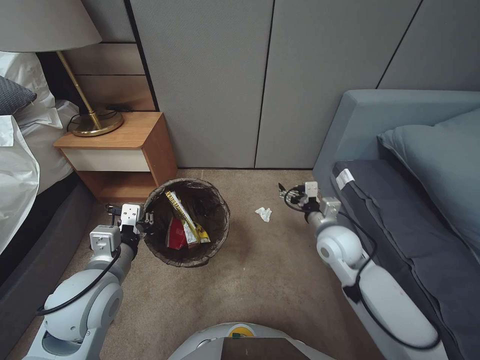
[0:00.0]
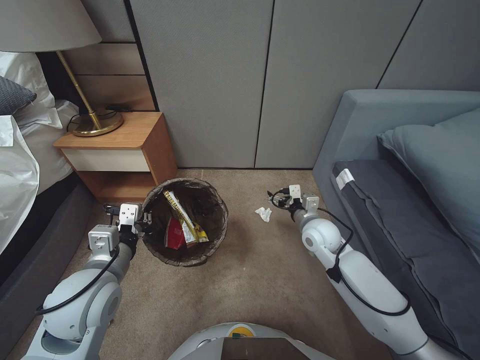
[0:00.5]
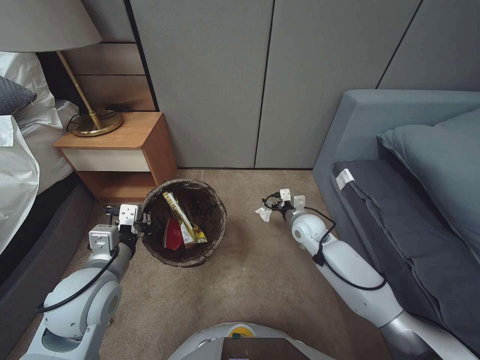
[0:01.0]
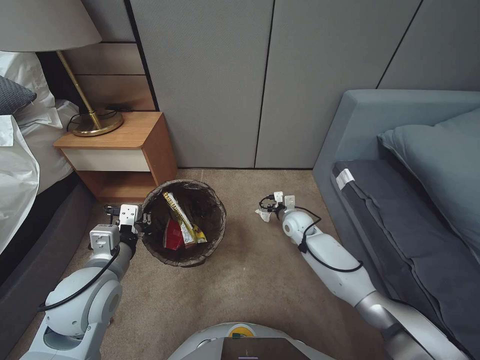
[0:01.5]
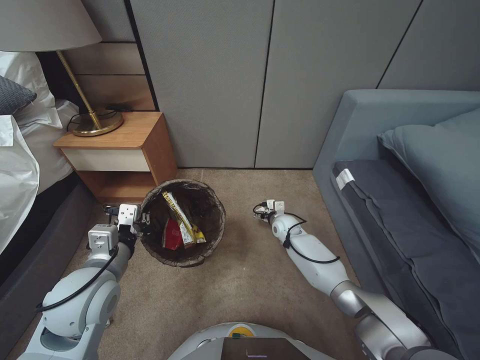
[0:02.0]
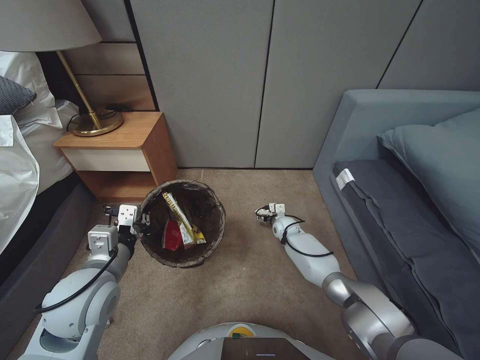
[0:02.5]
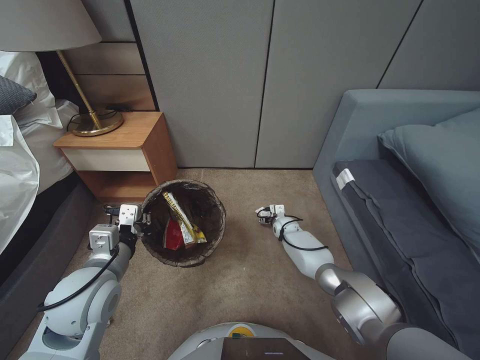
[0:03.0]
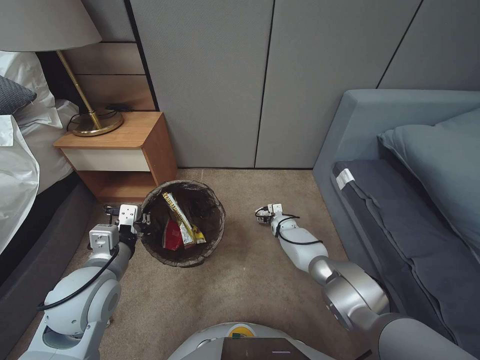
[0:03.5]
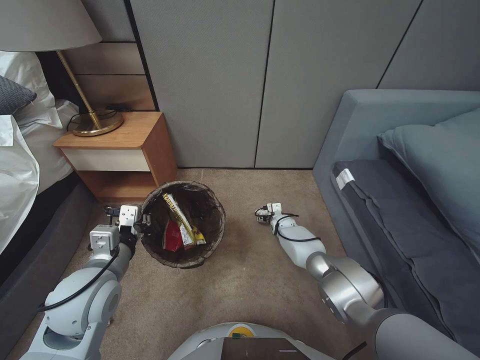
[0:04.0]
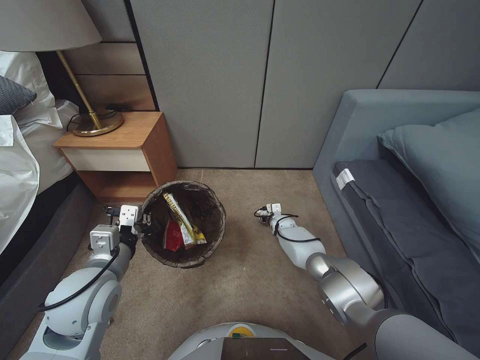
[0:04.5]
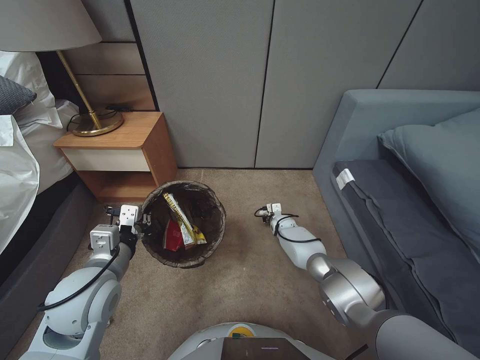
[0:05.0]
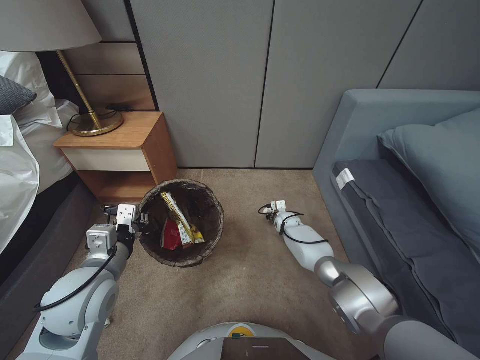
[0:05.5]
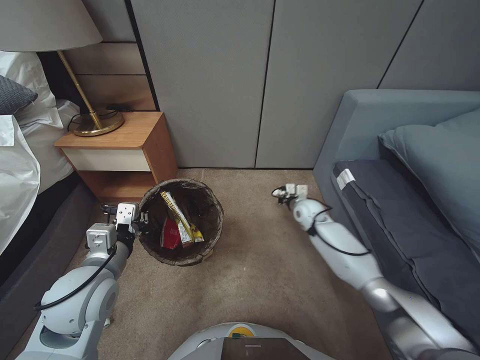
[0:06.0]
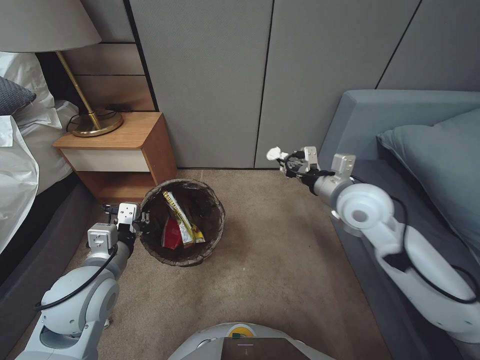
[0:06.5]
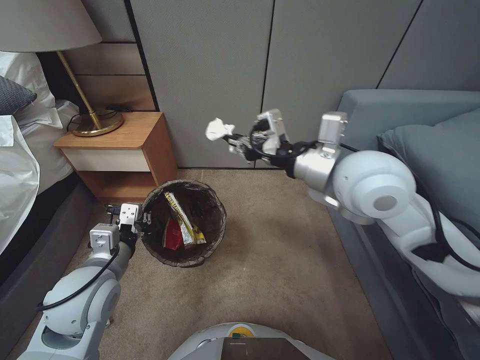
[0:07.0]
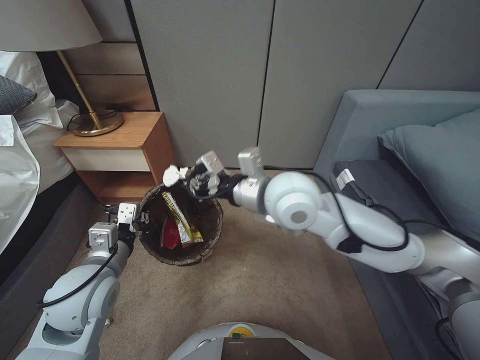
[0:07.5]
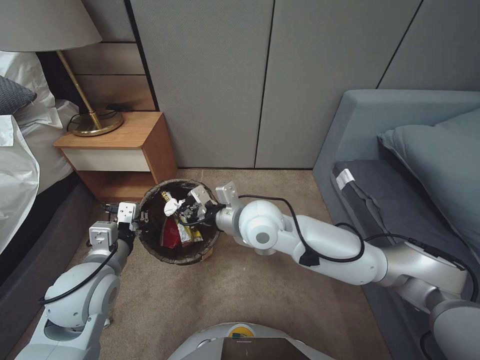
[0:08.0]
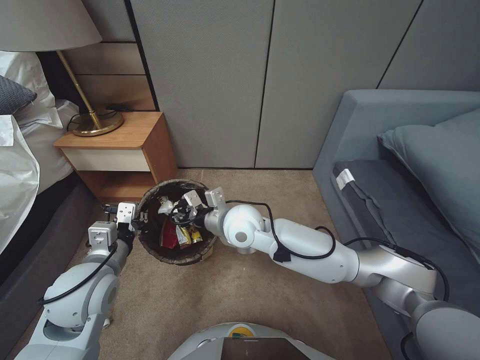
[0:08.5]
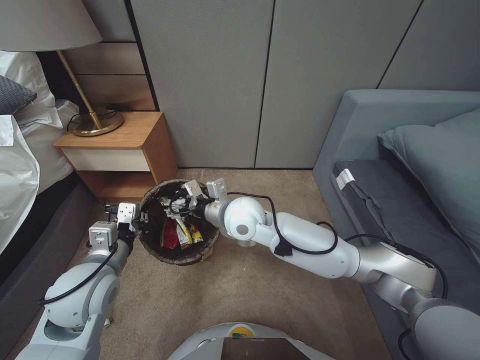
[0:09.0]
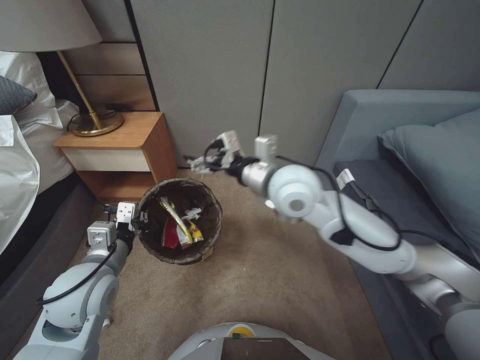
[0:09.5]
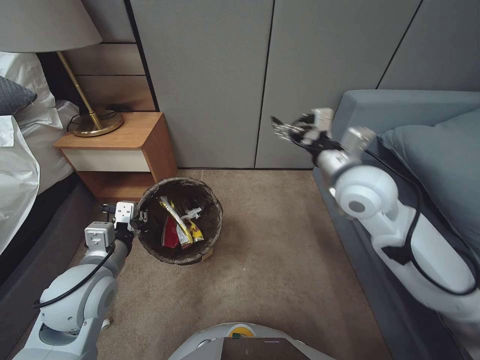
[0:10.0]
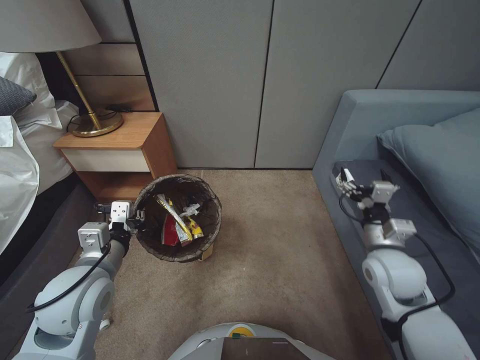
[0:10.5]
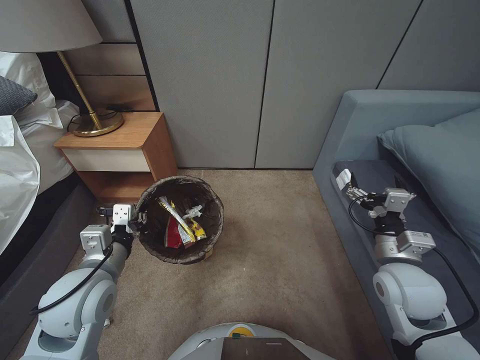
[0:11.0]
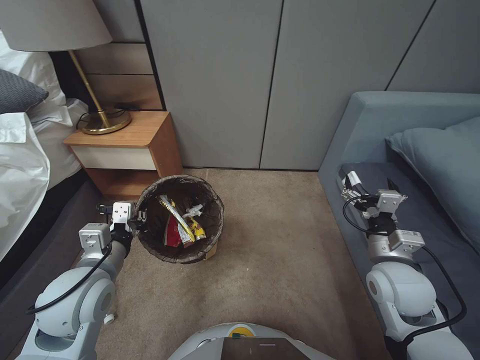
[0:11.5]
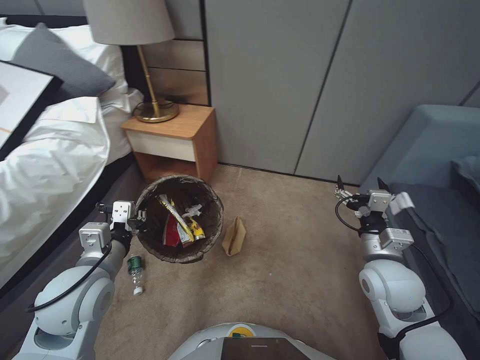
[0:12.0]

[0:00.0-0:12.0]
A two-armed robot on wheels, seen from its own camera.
Task of the whole recording: Pick up the trash bin, then pick up the garbage from the floor and place it into the trash bin.
0:00.0 to 0:02.0: The right gripper travels forward and downward by approximately 25 cm.
0:02.0 to 0:04.0: The right gripper shifts approximately 5 cm downward.
0:04.0 to 0:06.0: The right gripper heads upward, covering approximately 10 cm, and closes up.
0:06.0 to 0:08.0: The right gripper goes roughly 35 cm upward, to the left and backward.
0:08.0 to 0:10.0: The right gripper moves to the right and upward, some 20 cm, and opens up.
0:10.0 to 0:12.0: The right gripper is displaced downward, backward and to the right by approximately 25 cm.

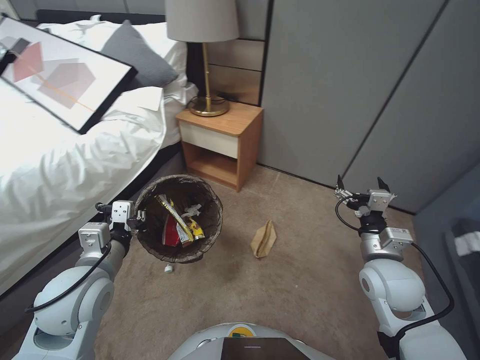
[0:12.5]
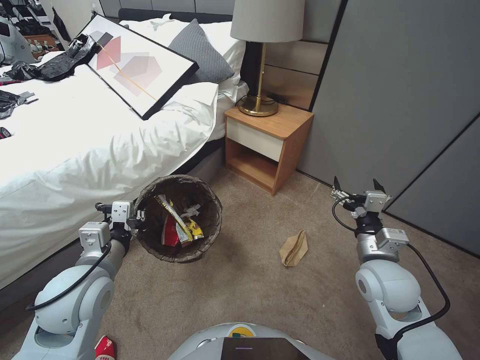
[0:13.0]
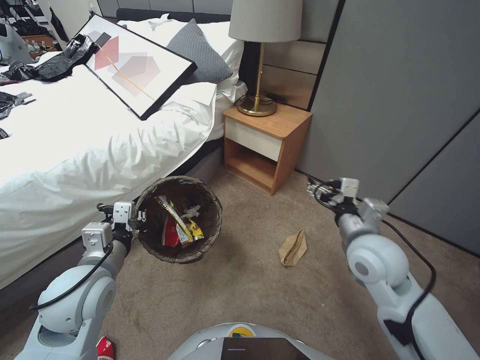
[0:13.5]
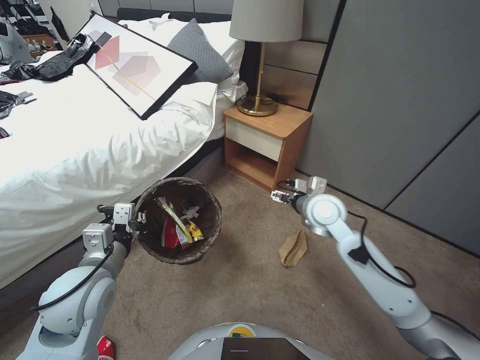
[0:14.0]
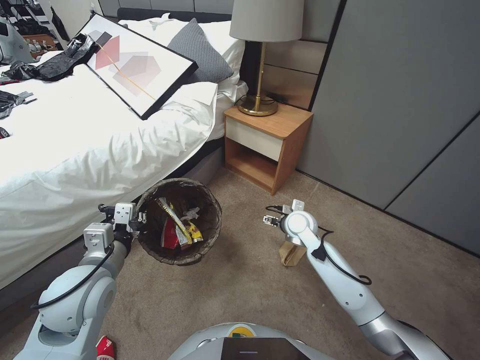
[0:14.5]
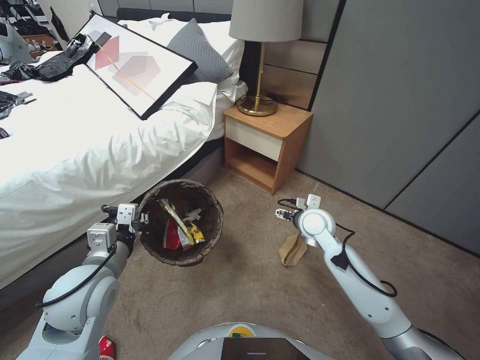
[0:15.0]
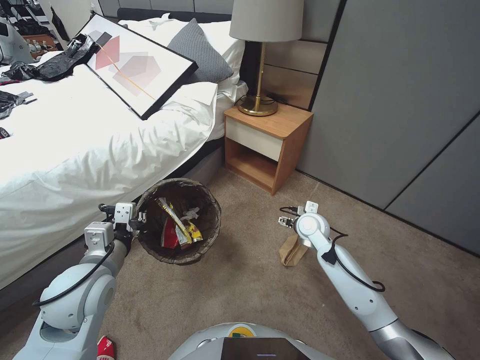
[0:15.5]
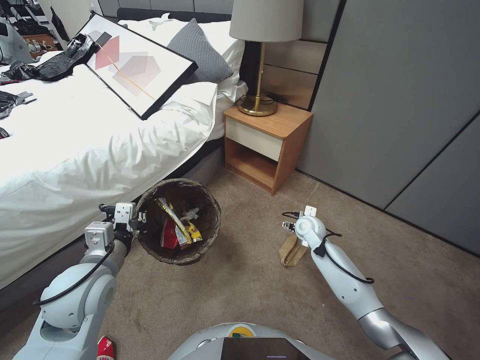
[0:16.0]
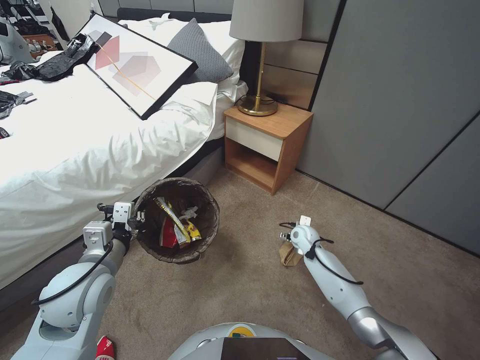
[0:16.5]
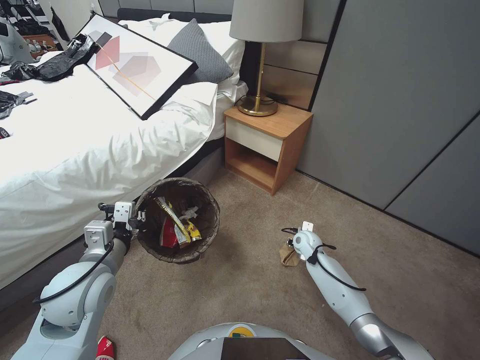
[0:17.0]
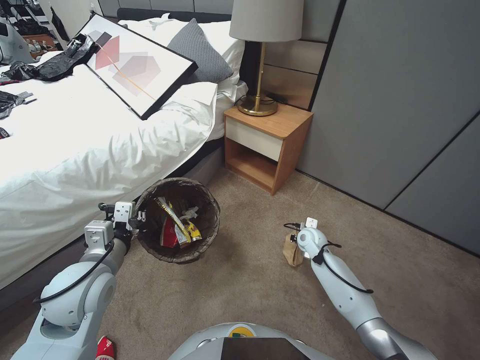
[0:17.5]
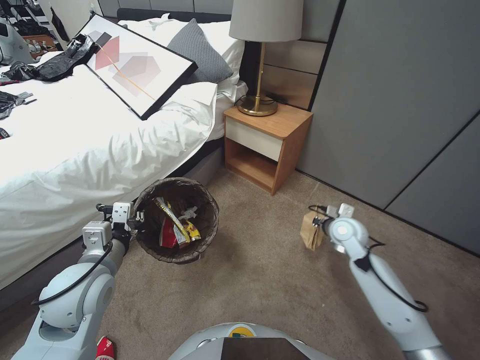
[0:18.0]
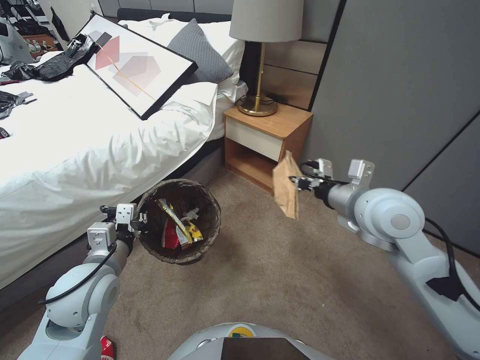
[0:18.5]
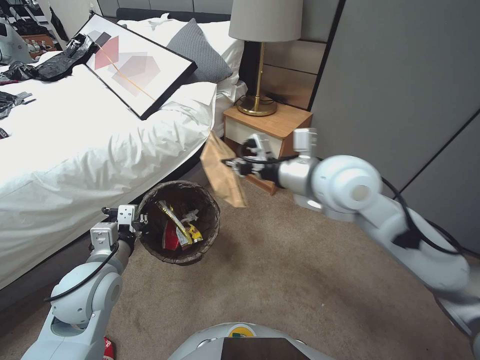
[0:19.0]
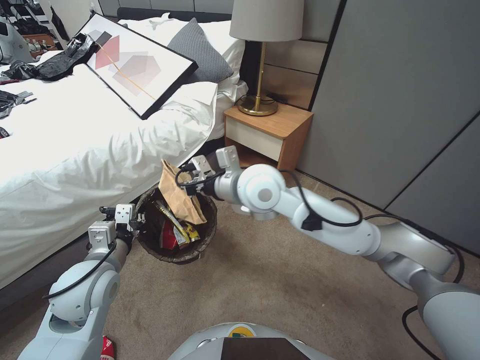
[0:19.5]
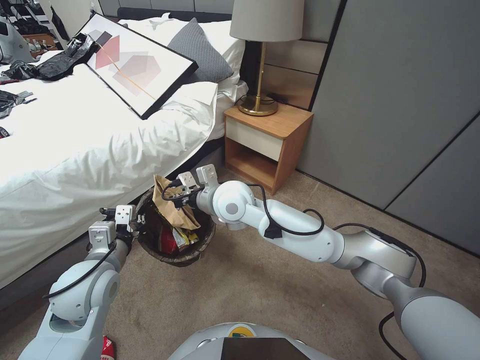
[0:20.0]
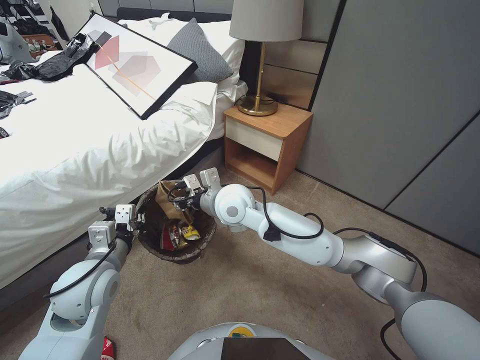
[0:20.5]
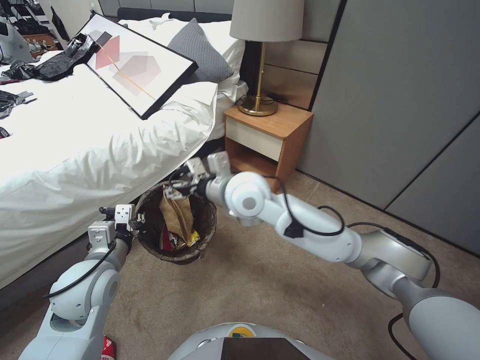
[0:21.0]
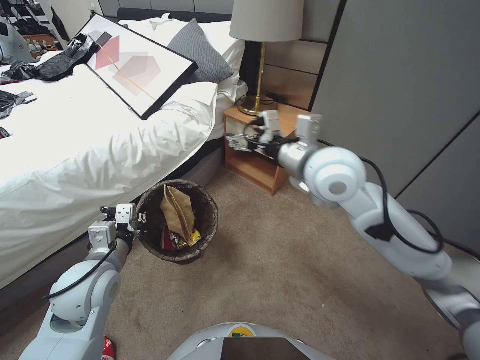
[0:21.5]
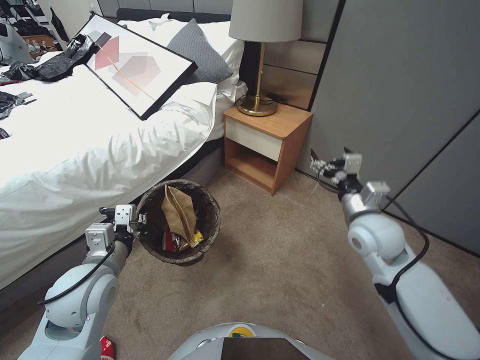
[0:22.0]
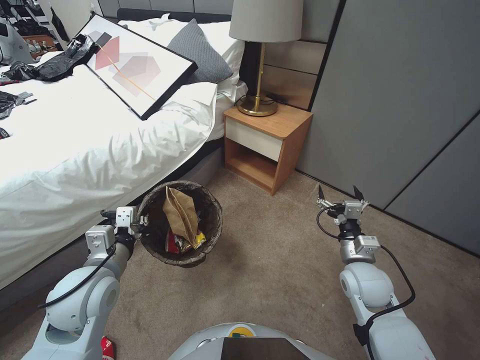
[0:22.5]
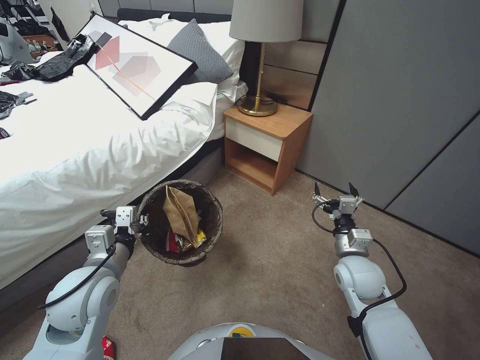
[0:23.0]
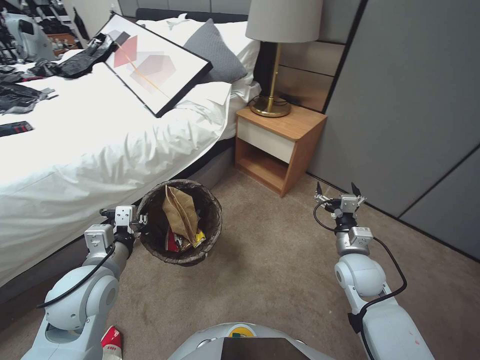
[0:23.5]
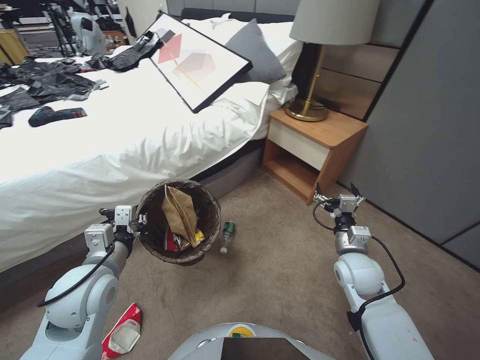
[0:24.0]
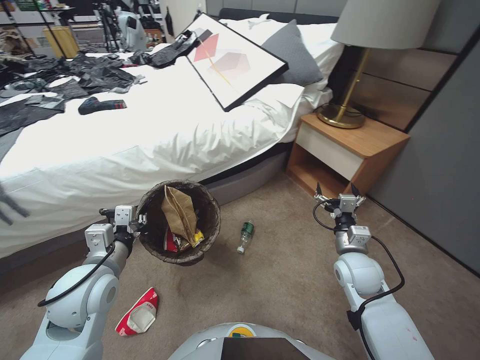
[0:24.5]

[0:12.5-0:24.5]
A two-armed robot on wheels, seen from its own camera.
Task of the whole recording: Pick up the trash bin, then pick up the garbage from the floor and place it into the trash bin.
0:12.5 to 0:14.5: The right gripper moves forward and to the left, roughly 20 cm.
0:14.5 to 0:16.5: The right gripper is displaced downward and to the right by about 15 cm.
0:16.5 to 0:18.5: The right gripper travels upward by some 30 cm, and closes.
0:18.5 to 0:20.5: The right gripper travels to the left by approximately 30 cm.
0:20.5 to 0:22.5: The right gripper moves to the right and downward, about 35 cm, and opens.

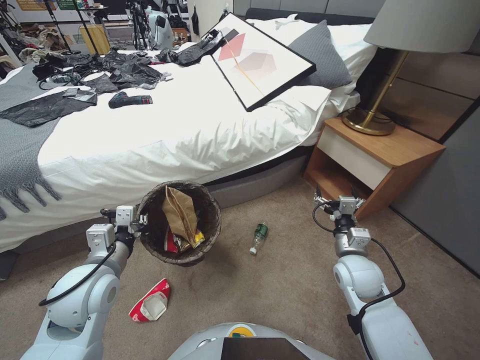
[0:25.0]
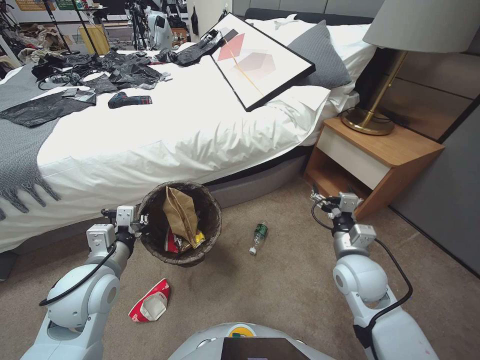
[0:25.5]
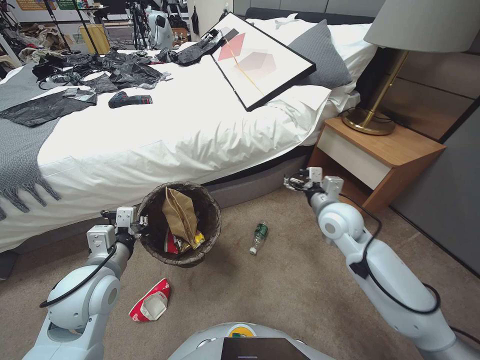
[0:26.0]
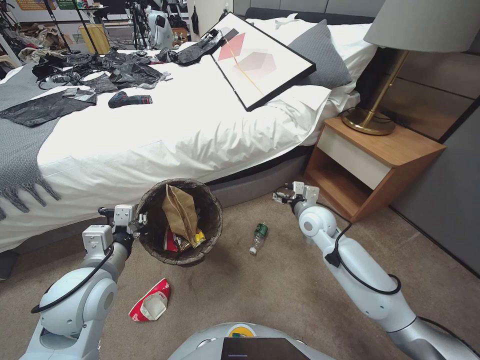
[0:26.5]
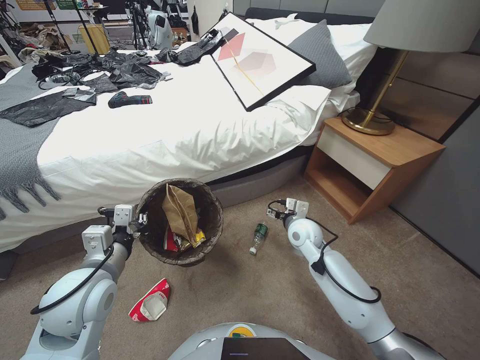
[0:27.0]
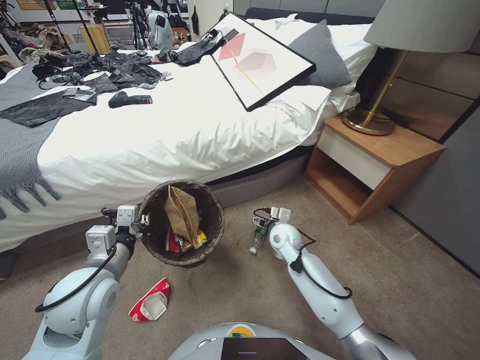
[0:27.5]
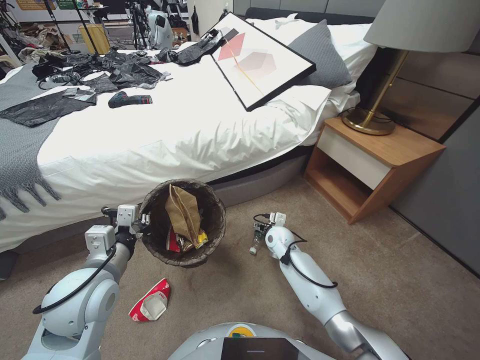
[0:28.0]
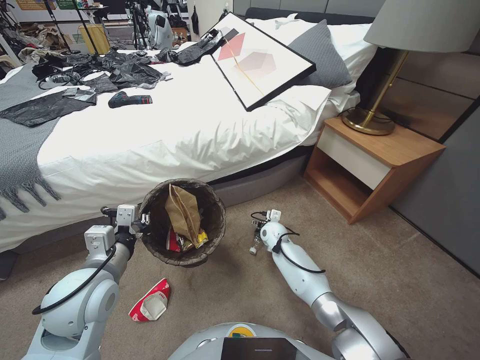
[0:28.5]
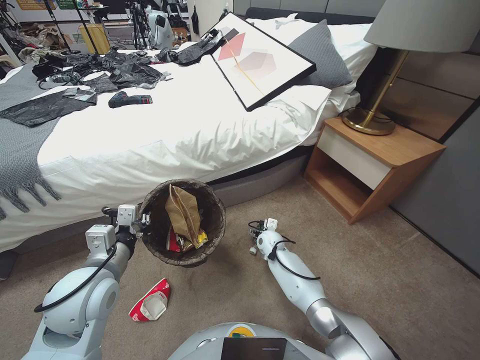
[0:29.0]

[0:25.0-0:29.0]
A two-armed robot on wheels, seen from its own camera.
Task of the whole recording: Pick up the trash bin, then pick up the garbage from the floor and place it into the trash bin.
0:25.0 to 0:27.0: The right gripper travels forward and to the left by roughly 15 cm.
0:27.0 to 0:29.0: The right gripper moves downward and to the left, about 15 cm.
